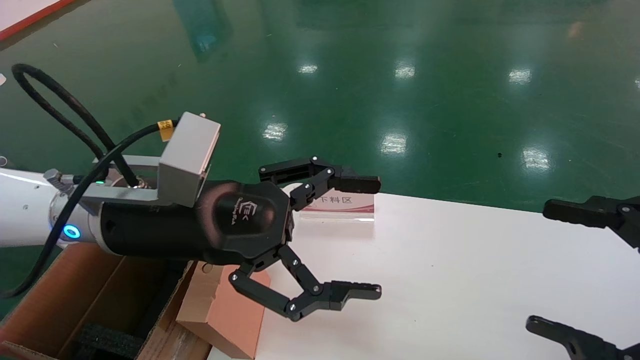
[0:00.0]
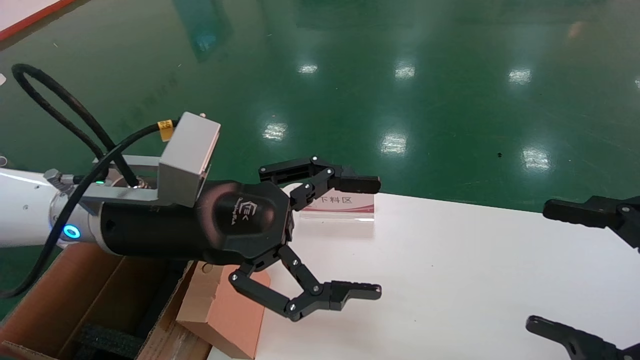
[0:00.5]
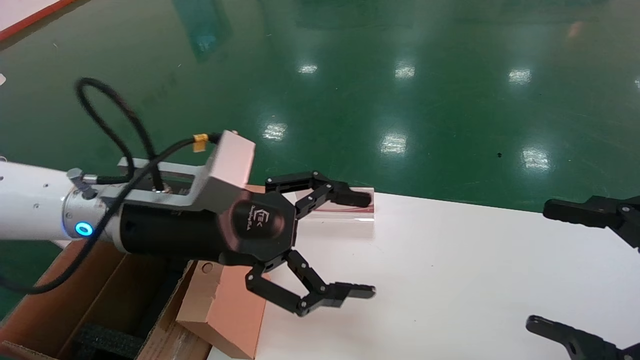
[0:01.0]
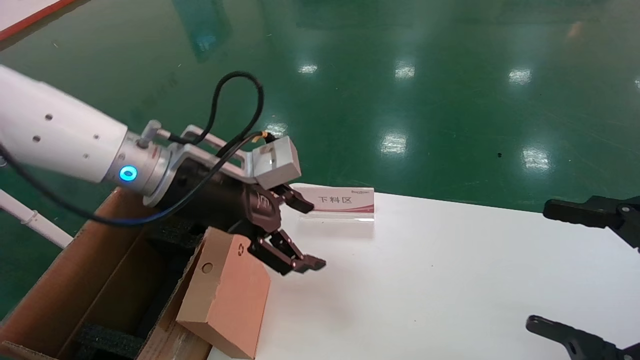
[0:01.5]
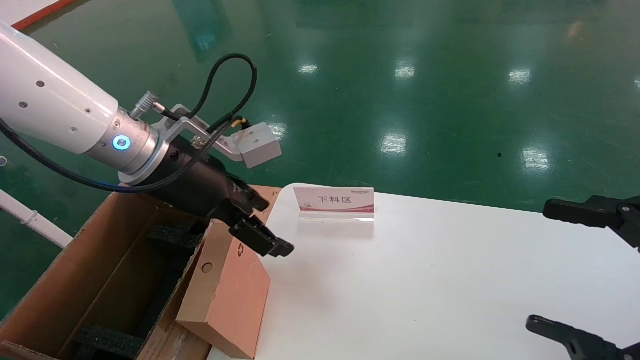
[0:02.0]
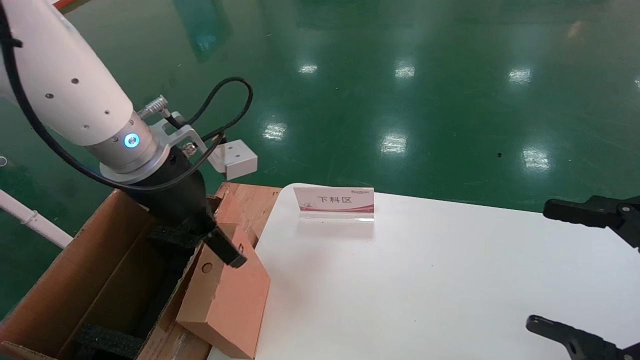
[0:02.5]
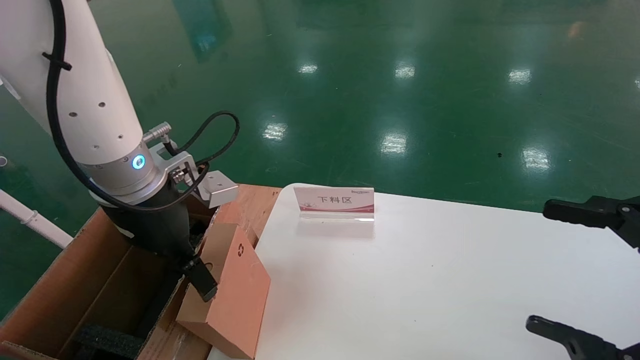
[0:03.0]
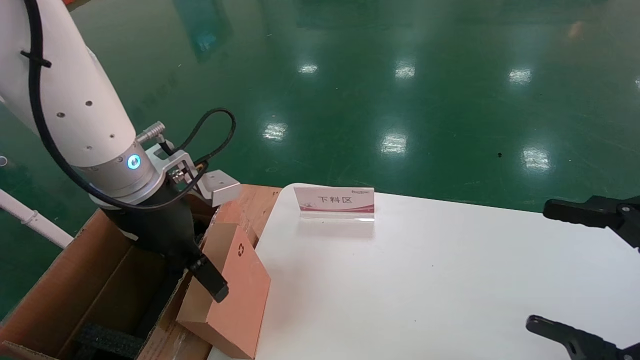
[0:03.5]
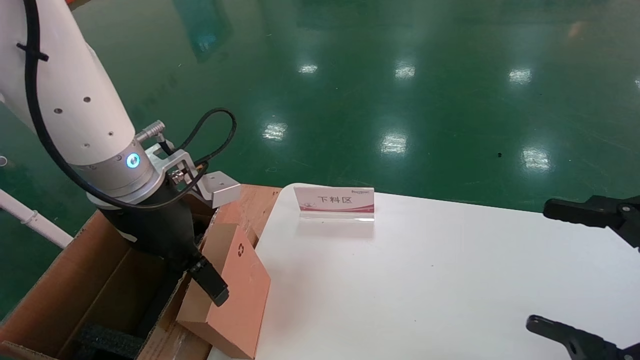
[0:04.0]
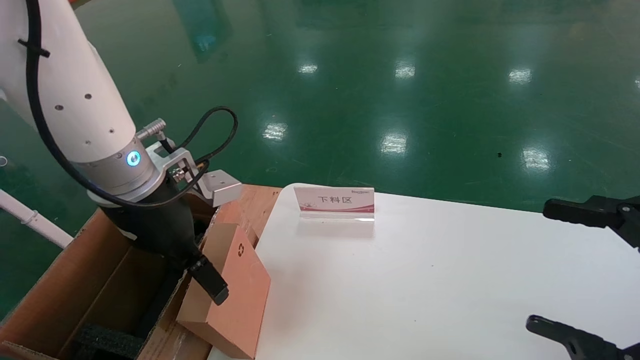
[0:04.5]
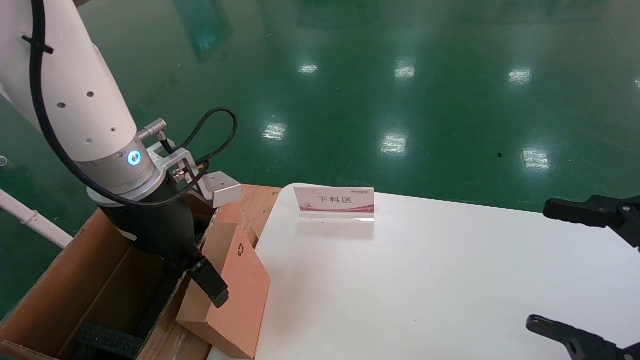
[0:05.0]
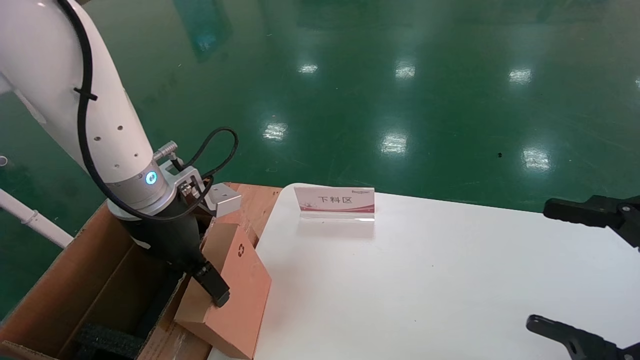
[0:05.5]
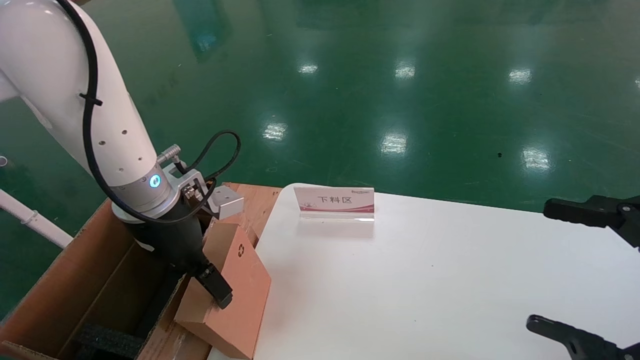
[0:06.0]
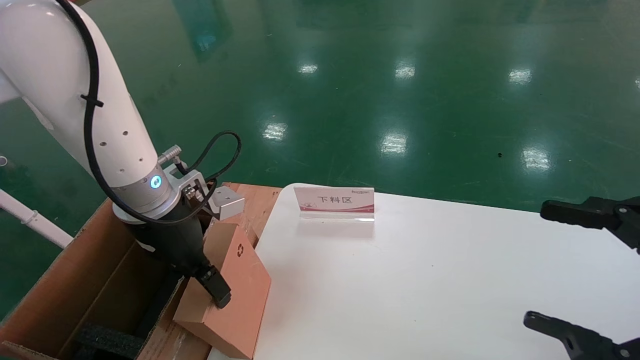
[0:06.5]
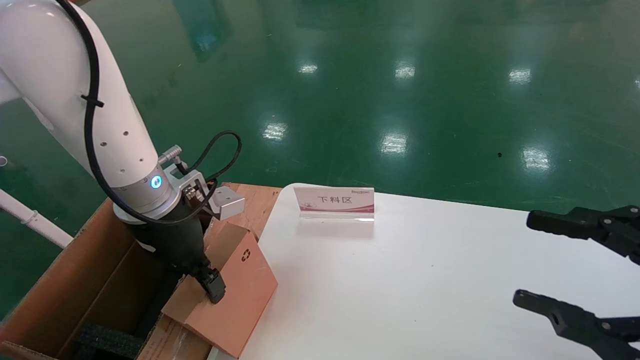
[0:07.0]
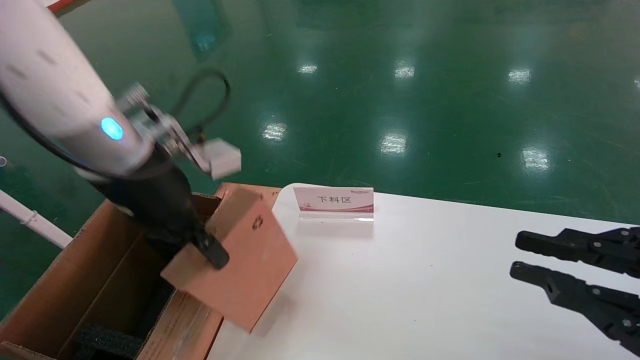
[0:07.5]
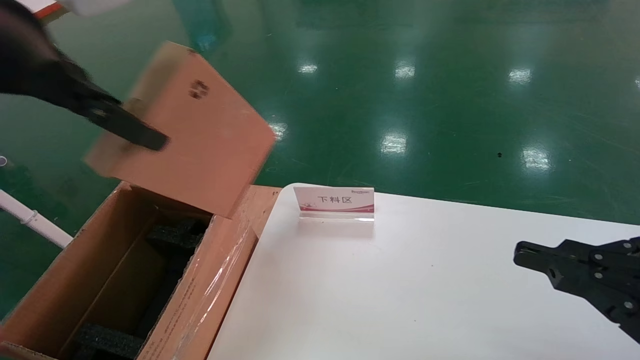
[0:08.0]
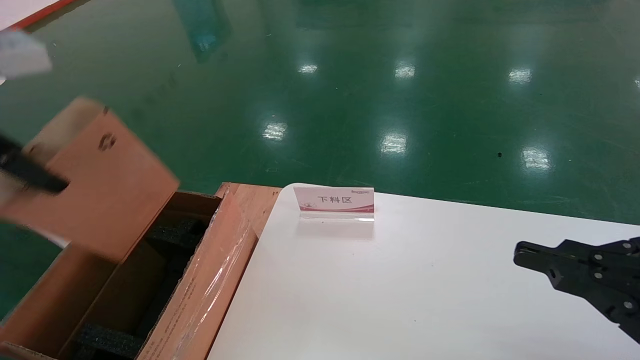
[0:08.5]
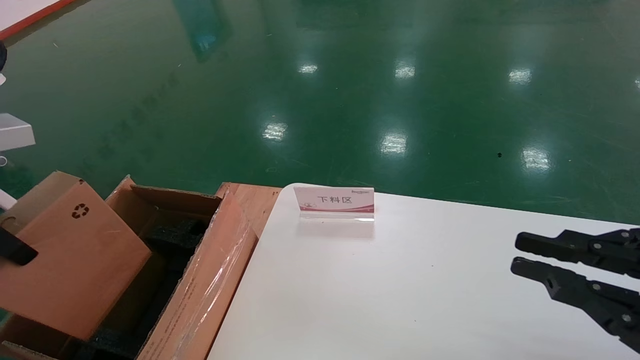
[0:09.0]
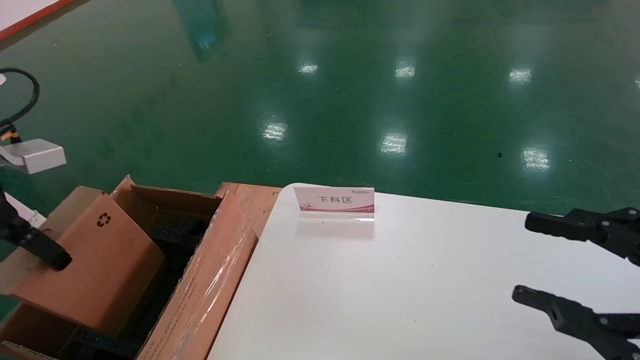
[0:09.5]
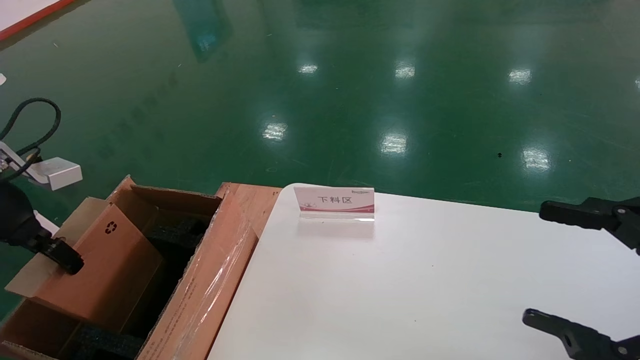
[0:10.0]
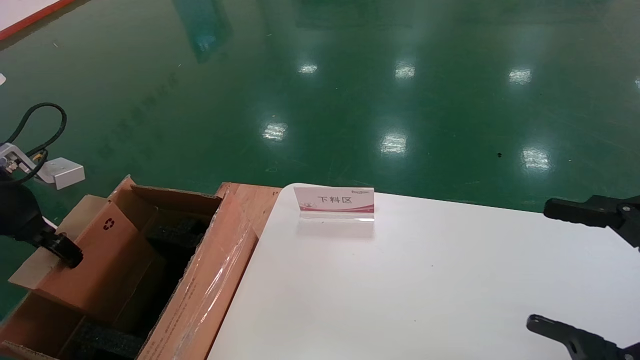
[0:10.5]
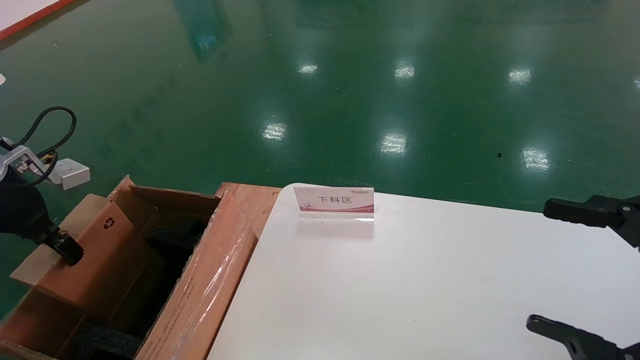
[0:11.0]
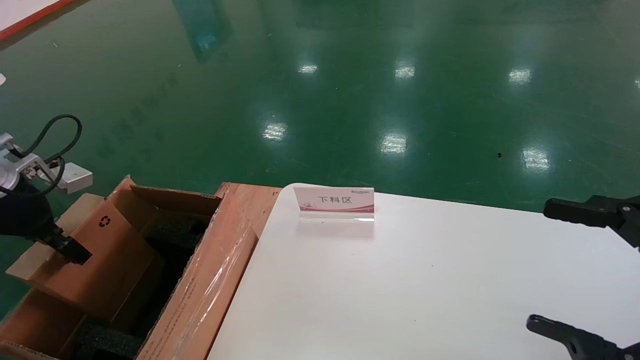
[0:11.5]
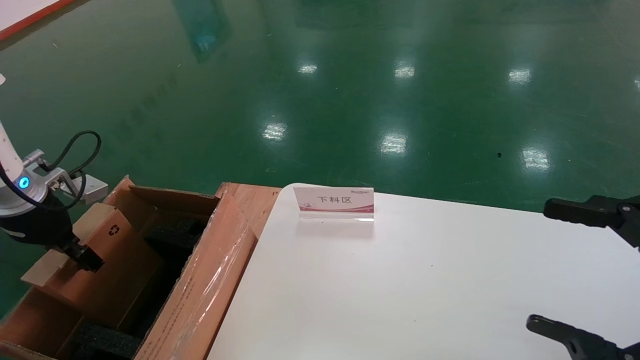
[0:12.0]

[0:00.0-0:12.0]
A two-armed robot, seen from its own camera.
Task of the whole recording: pick up the small cardboard box and load it into the large cardboard box.
Step, 0:01.0 to 0:07.0: Pick up the mouse and power cord box.
0:00.0 to 0:02.0: The left gripper travels forward by approximately 5 cm.
0:04.0 to 0:06.0: The grippers stay close to where they were, moving slightly.
0:06.0 to 0:08.0: The right gripper closes. The left gripper shifts roughly 25 cm upward and backward, and closes up.
0:08.0 to 0:10.0: The right gripper opens up; the left gripper goes approximately 25 cm downward and to the left.
0:10.0 to 0:12.0: The left gripper moves downward and forward, some 10 cm.

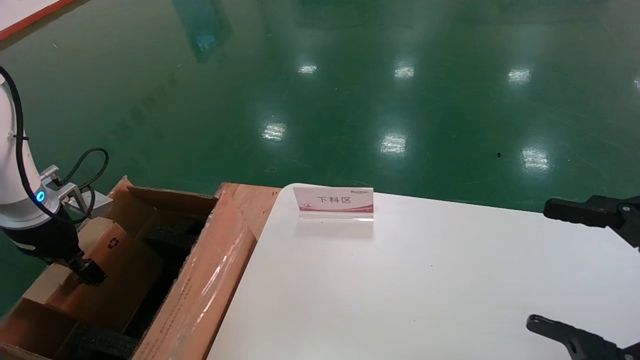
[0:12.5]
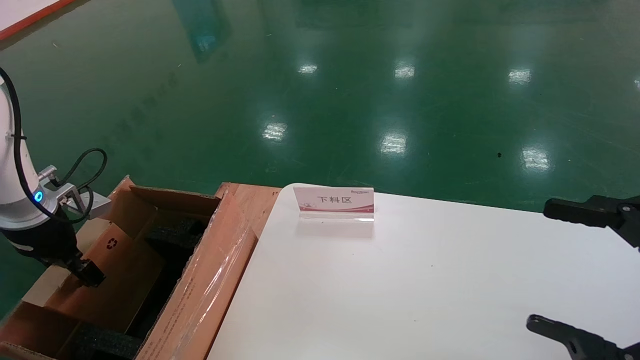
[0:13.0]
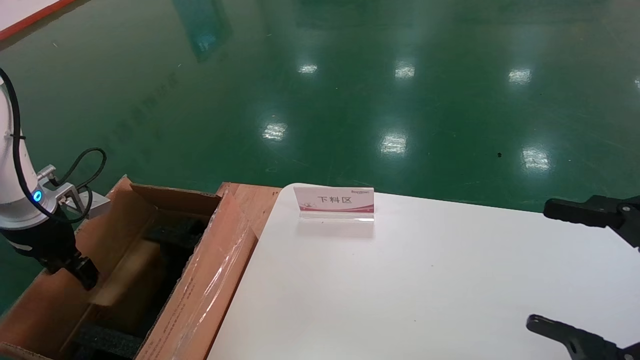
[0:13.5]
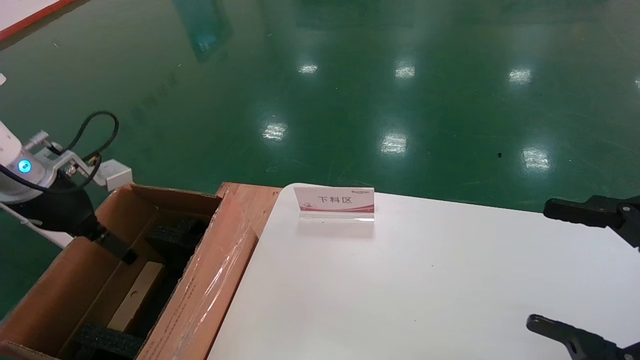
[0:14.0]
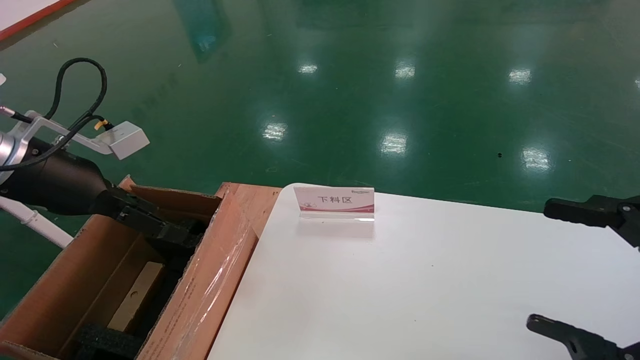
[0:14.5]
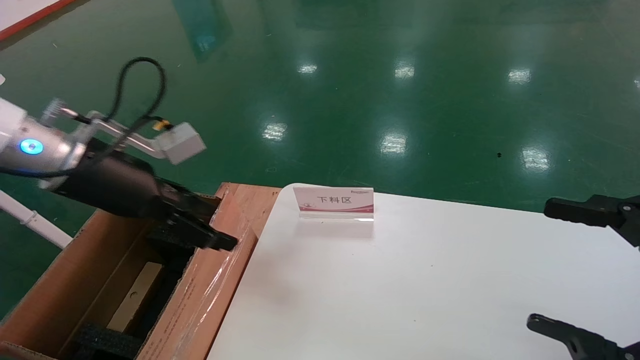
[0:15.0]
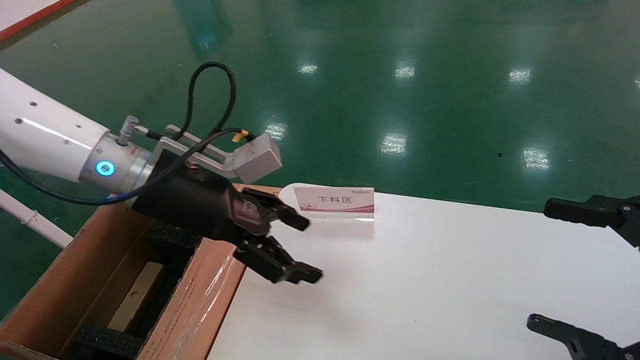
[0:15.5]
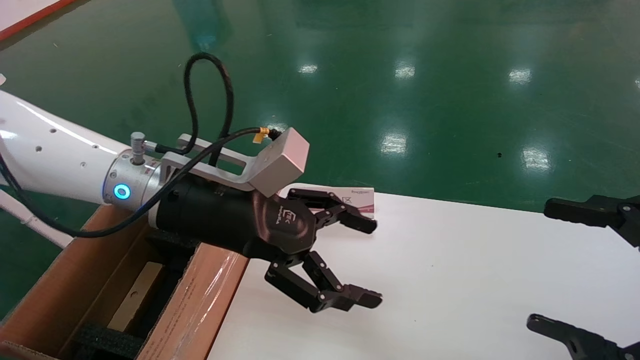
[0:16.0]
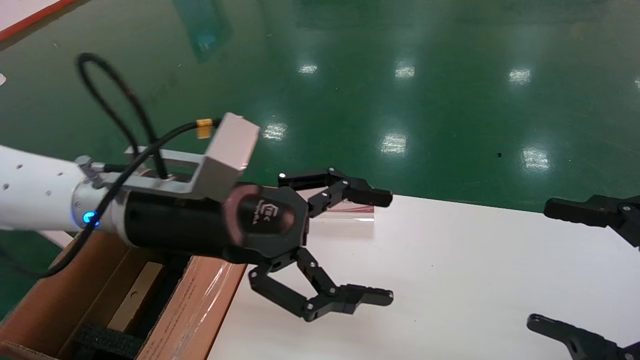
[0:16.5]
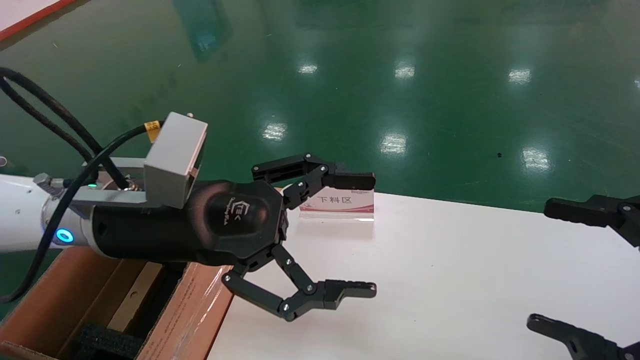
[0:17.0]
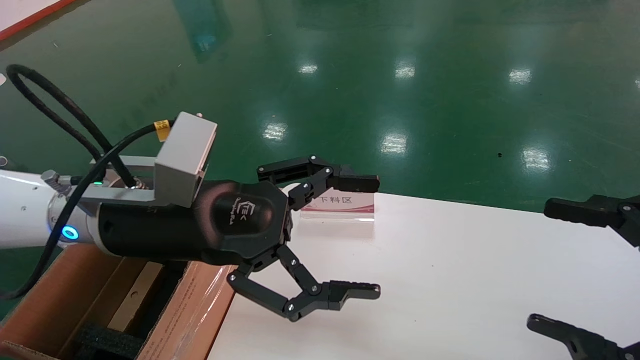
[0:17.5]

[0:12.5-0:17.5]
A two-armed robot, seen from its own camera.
Task of the whole recording: pick up the small cardboard box and load it into the large cardboard box.
0:12.5 to 0:15.0: The left gripper shifts some 20 cm to the right and upward, and opens up.
0:15.0 to 0:17.5: The left gripper shifts about 10 cm to the right.
